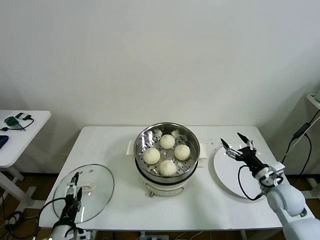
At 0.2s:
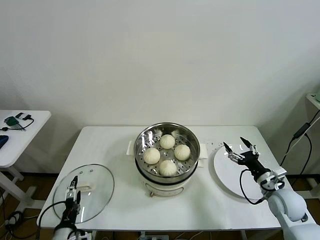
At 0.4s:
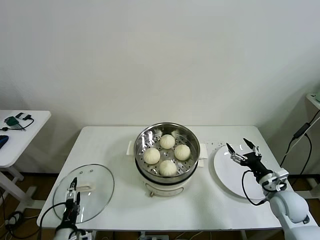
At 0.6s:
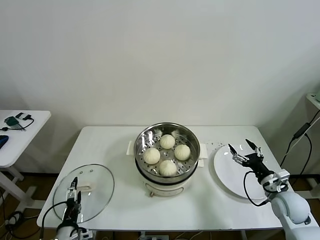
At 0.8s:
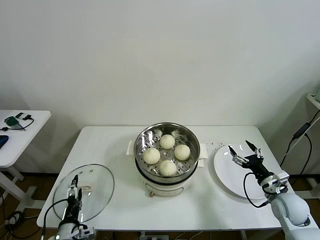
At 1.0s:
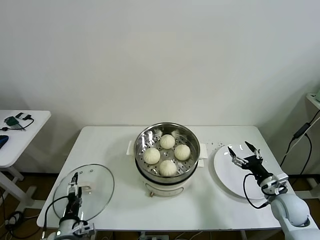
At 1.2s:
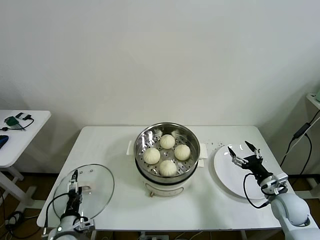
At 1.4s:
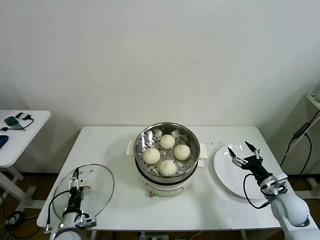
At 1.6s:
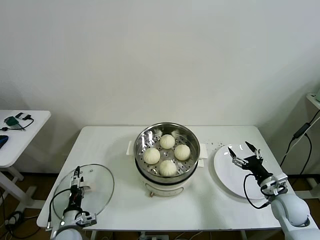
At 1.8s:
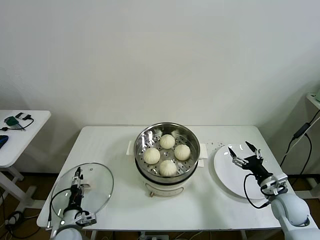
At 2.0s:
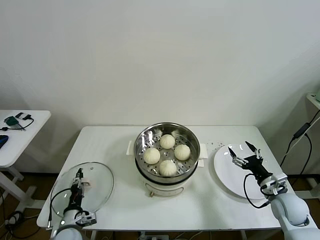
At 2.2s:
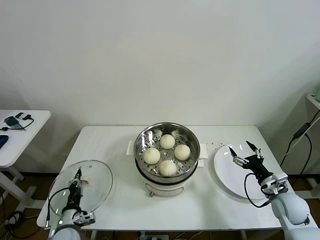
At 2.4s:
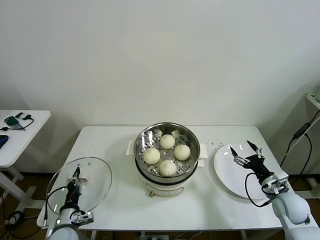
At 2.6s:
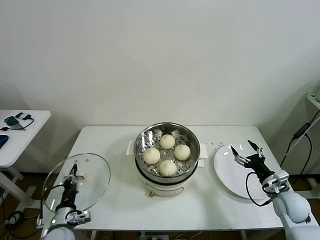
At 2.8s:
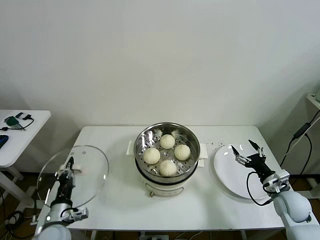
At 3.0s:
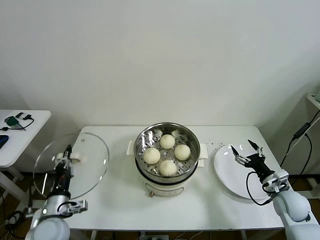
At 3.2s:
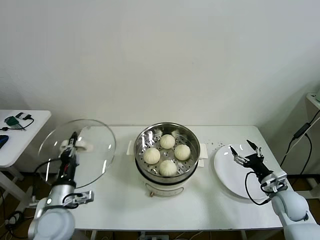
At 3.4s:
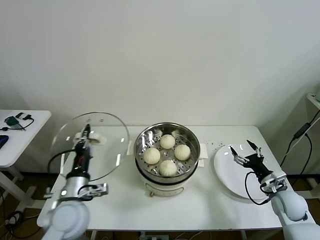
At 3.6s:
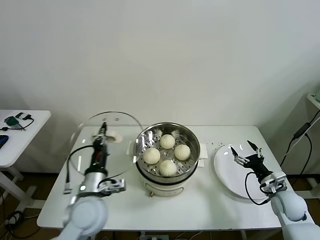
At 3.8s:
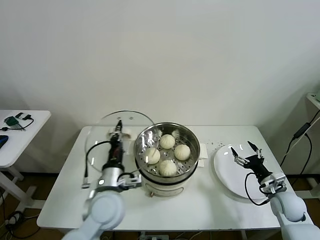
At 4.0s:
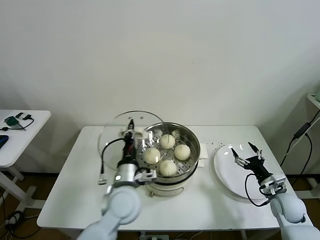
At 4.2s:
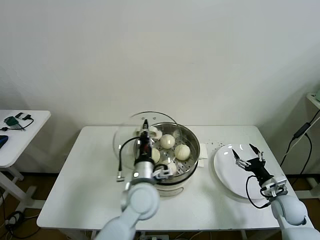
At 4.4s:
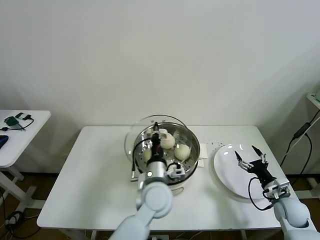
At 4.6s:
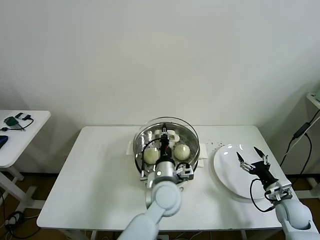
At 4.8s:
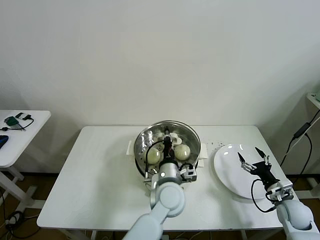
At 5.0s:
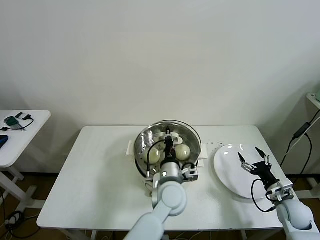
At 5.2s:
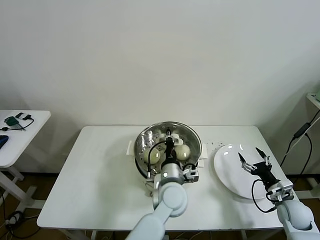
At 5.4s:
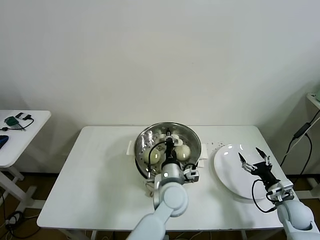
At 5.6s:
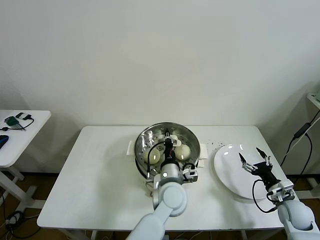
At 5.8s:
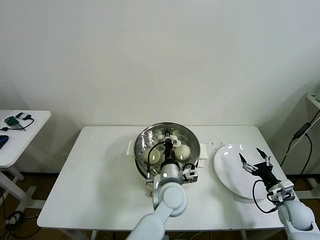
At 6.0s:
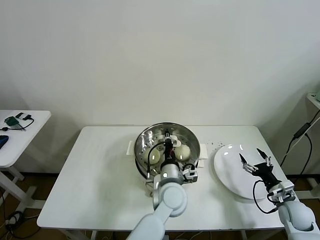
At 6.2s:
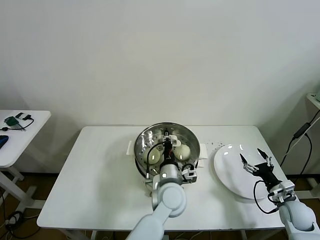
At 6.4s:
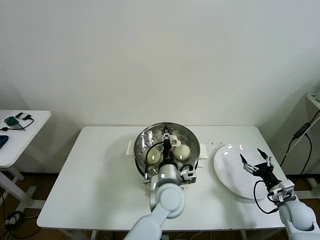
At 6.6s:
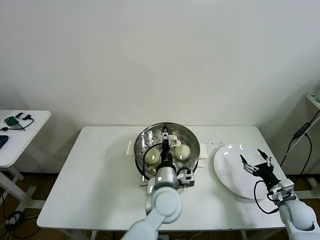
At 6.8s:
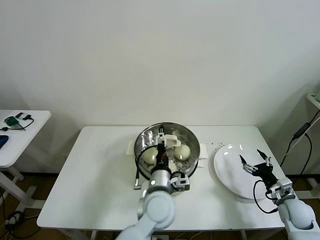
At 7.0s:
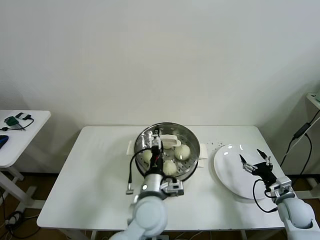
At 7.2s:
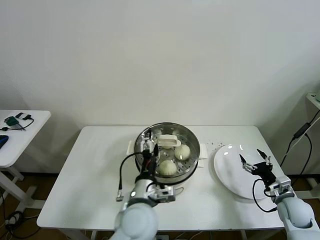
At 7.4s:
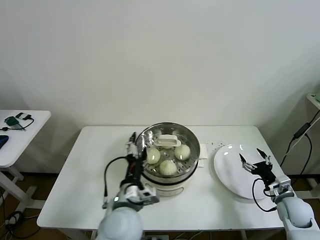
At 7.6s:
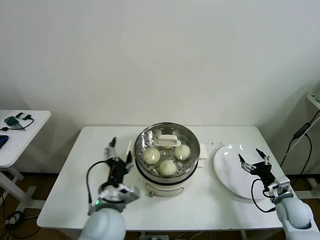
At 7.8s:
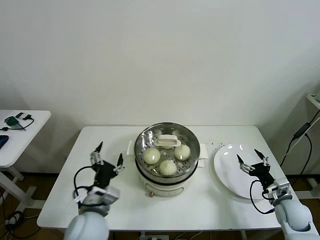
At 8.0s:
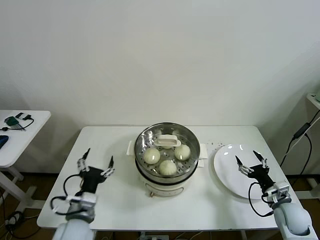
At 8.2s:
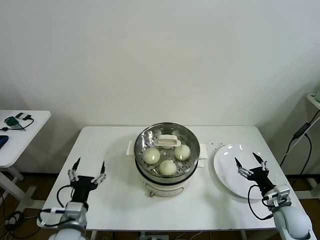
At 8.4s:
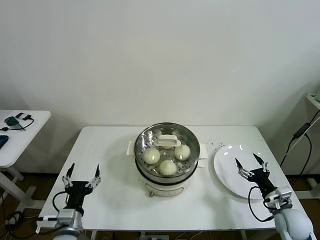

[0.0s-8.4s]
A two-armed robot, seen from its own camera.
Task of the whole recording: take steamed baozi put them in steamer then cover it.
Step, 0.0s to 2.2s: Grasp the pot lid with left gripper.
Step, 2.4s to 6.8s: Place the pot lid on the steamer with left gripper.
0.0s to 1.4s: The left gripper travels downward and forward by approximately 10 cm.
1.4s to 2.8s: The left gripper heads upward, covering roughly 5 cm, and closes.
2.8s to 4.2s: The left gripper travels to the right and upward by some 30 cm.
4.2s to 5.6s: The left gripper moves to the right, some 10 cm.
5.6s to 7.0s: The left gripper heads to the left, covering some 5 cm, and opens its fingers.
7.0s to 8.4s: The left gripper shifts some 25 cm to the left.

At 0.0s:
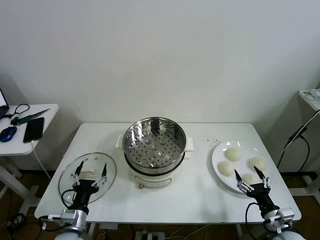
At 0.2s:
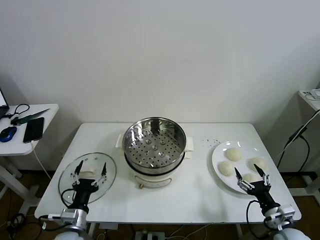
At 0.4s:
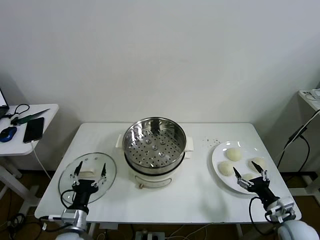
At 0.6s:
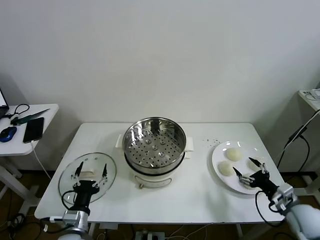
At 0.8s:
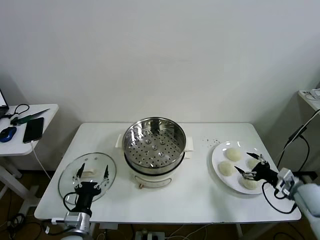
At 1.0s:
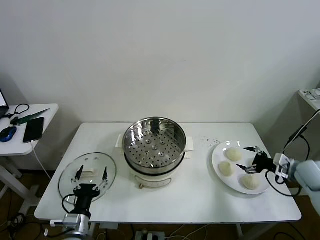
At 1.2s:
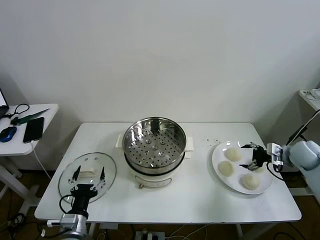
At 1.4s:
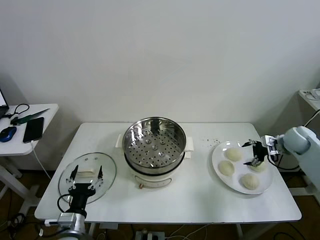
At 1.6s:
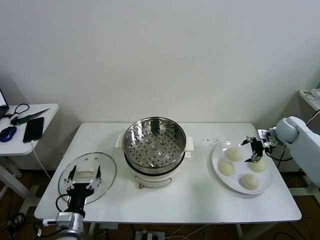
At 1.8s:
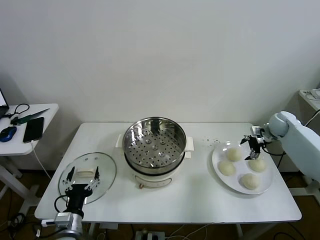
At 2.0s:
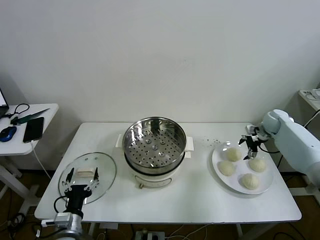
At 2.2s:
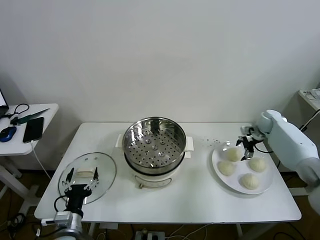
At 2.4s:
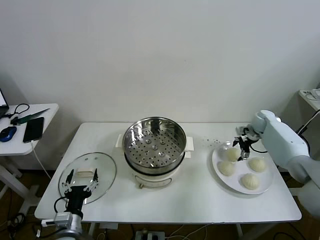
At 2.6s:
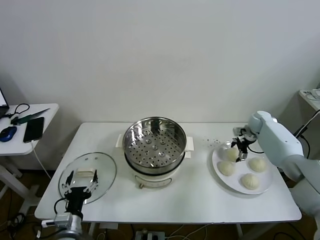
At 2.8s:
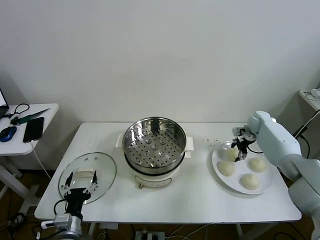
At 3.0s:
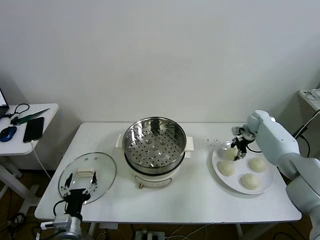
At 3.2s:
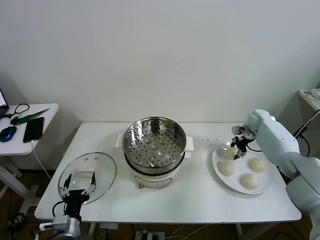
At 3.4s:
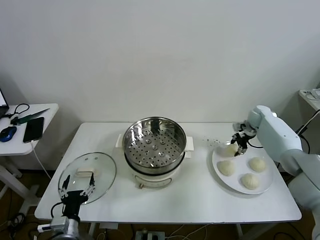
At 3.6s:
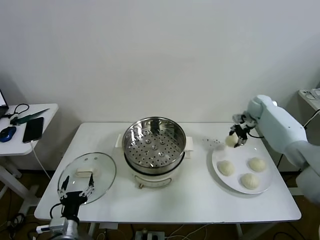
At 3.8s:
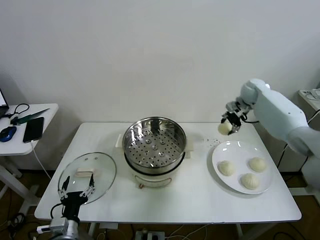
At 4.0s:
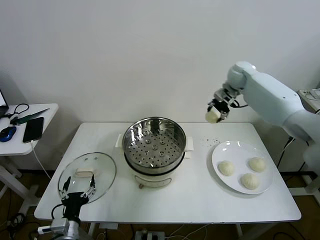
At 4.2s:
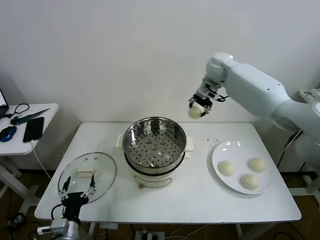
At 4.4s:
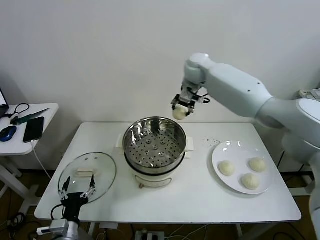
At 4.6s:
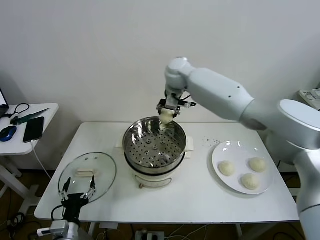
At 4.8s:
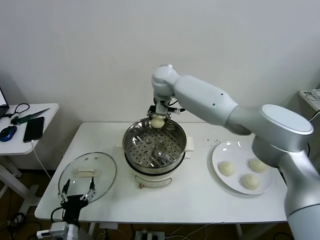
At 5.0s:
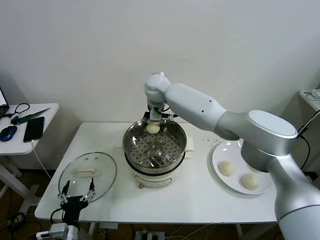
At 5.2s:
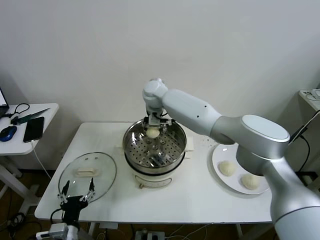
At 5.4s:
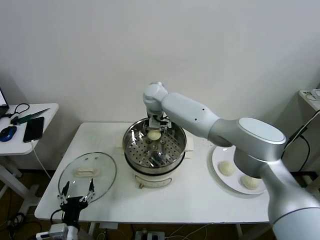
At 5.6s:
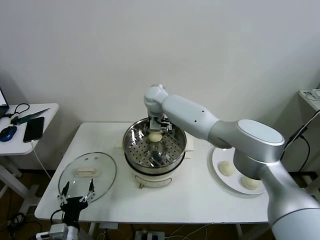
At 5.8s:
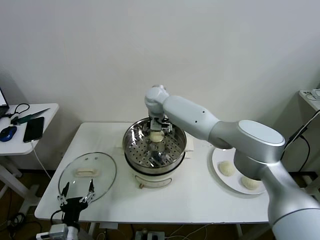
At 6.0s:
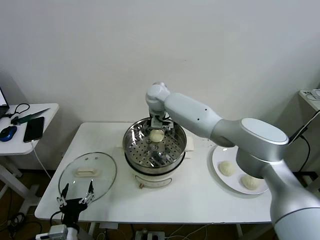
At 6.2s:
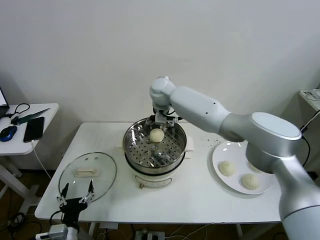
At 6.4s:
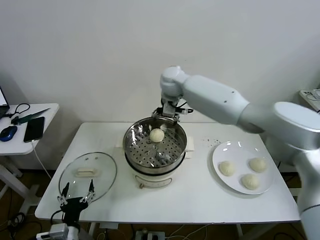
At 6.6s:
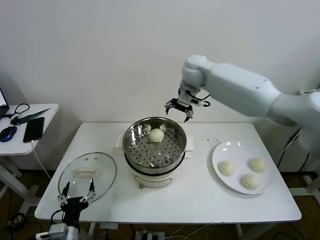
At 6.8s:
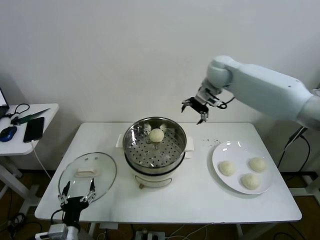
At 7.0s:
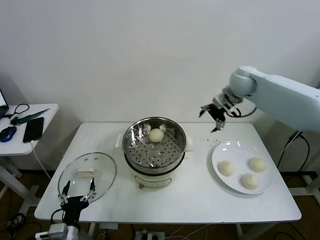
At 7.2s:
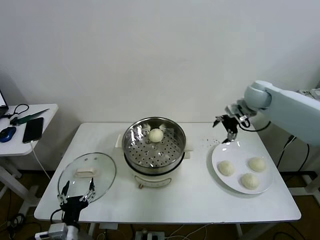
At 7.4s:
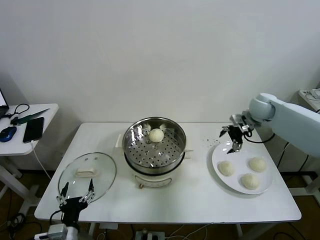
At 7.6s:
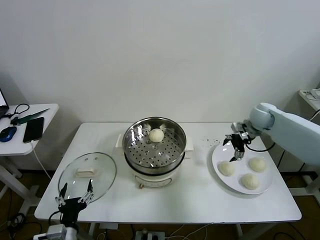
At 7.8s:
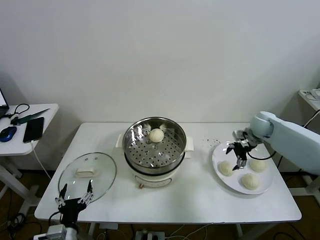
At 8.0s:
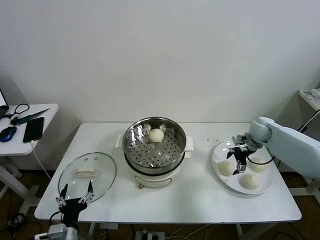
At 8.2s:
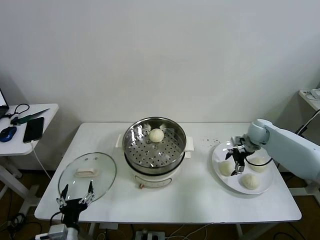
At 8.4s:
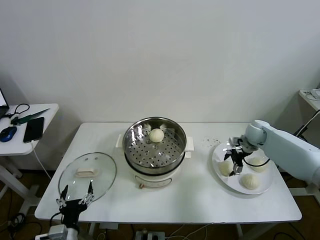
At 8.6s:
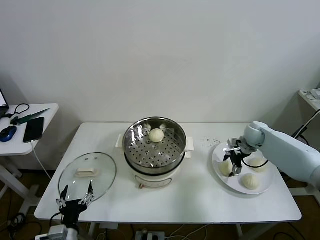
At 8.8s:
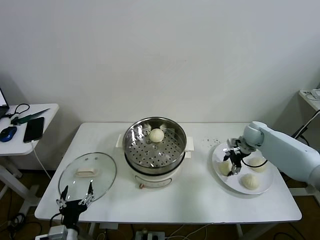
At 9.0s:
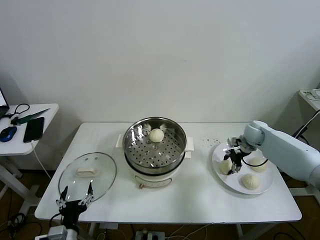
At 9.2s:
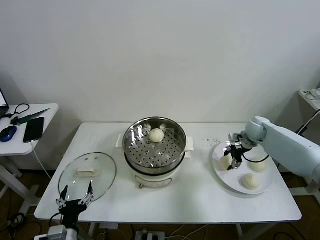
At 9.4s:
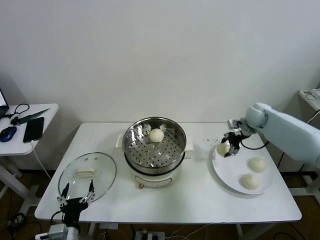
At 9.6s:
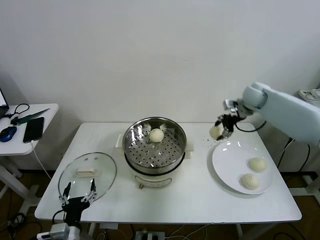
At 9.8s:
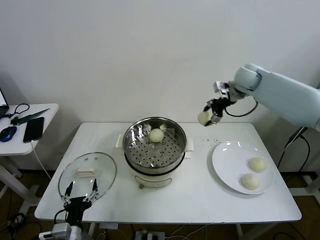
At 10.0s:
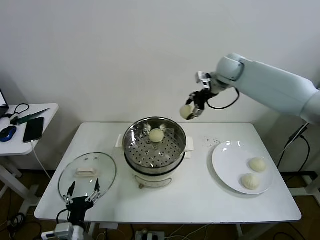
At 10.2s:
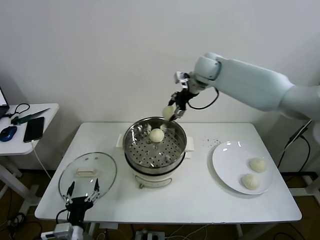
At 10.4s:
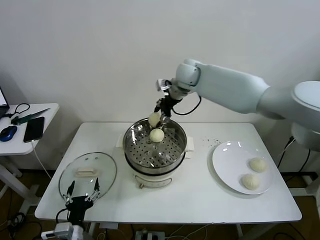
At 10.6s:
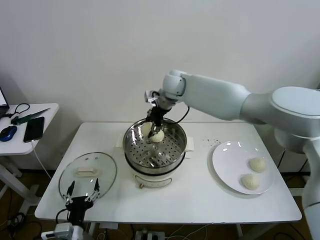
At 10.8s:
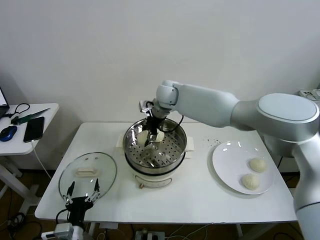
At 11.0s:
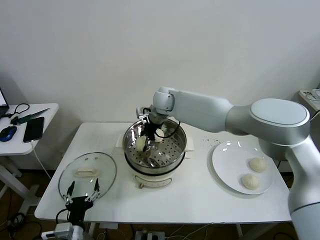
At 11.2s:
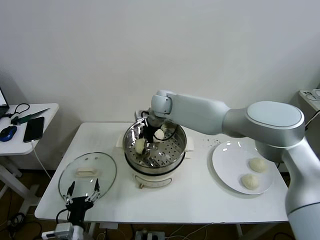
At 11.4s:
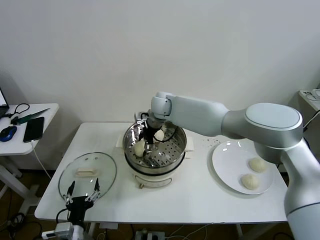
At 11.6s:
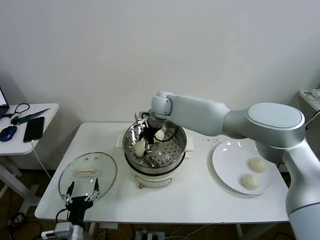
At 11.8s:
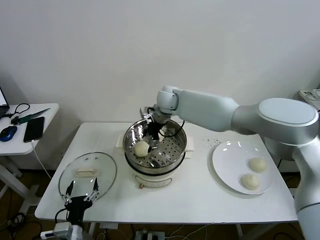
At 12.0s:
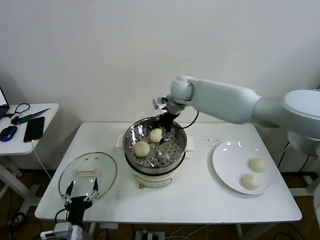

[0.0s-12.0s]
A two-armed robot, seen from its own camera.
Task of the whole recording: take steamed baozi put them in steamer then cover it.
Step, 0.0s to 3.0s: Grasp the baozi in the plate with right gripper.
Step, 3.2s to 5.8s: Place the baozi on the steamer with right gripper.
Step, 6.0s to 8.8s: Grasp the baozi in the plate with right gripper.
Step, 9.0s to 11.8s: Place the baozi on the steamer with right gripper.
1.6s to 3.0s: The right gripper moves forward and to the left, roughly 10 cm, and closes up.
3.0s to 4.4s: The right gripper moves to the left and upward, approximately 40 cm.
4.4s to 6.0s: The right gripper heads to the left and downward, covering roughly 10 cm, and opens its fingers.
6.0s to 7.6s: The right gripper goes some 40 cm to the right.
7.6s to 9.0s: The right gripper moves downward, about 5 cm, and closes up.
9.0s to 10.4s: The right gripper heads to the left and upward, covering approximately 40 cm.
10.4s to 12.0s: The right gripper moves approximately 5 cm to the left and comes back, and opens.

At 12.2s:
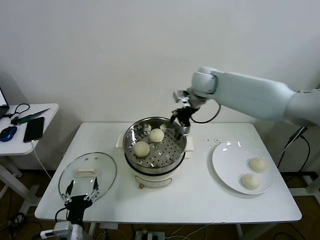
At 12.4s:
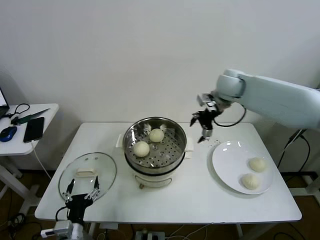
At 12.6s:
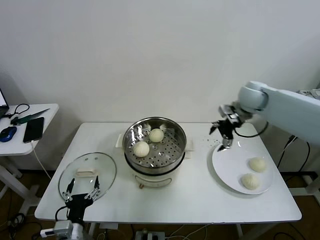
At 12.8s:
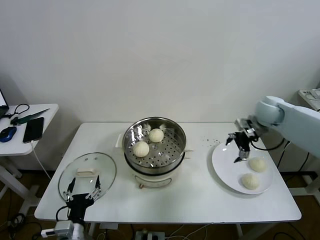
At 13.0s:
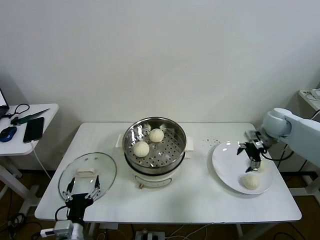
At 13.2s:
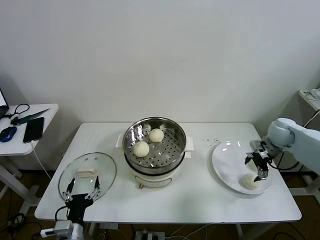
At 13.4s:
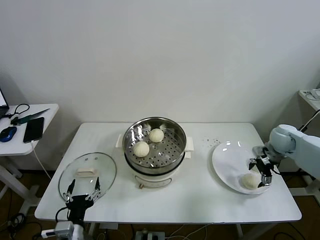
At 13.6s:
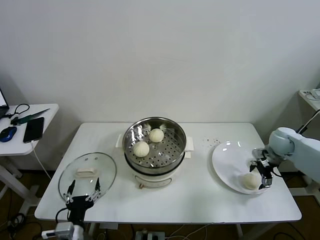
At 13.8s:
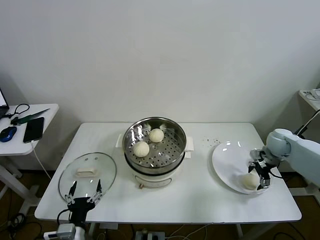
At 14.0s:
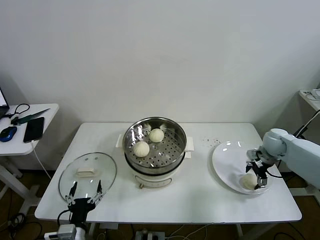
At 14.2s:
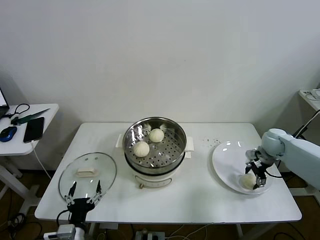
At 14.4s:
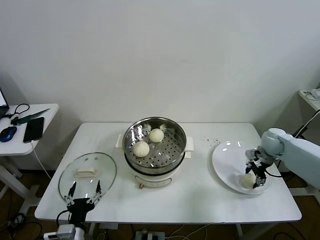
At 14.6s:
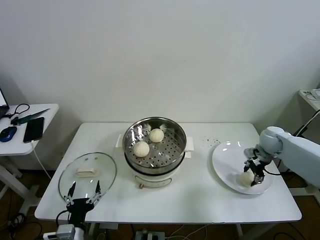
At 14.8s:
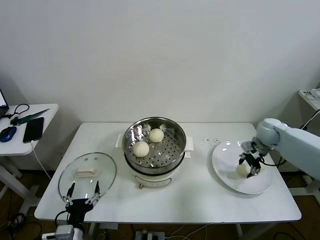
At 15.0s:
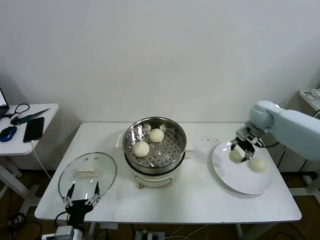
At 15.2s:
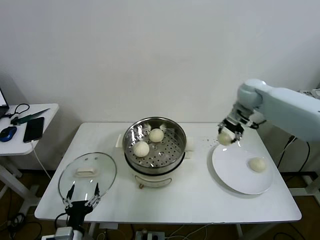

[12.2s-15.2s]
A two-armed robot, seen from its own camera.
Task of the whole recording: take steamed baozi put them in steamer then cover it.
Step, 12.2s to 14.4s: Grasp the baozi in the plate with right gripper.
12.2s to 13.8s: The right gripper heads to the right and downward, covering approximately 35 cm.
13.8s to 15.2s: The right gripper heads upward, to the left and forward, covering some 25 cm, and closes up.
